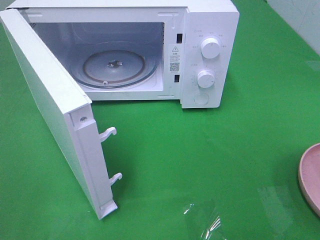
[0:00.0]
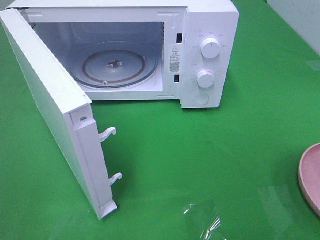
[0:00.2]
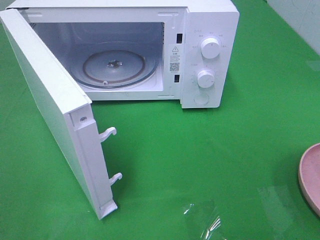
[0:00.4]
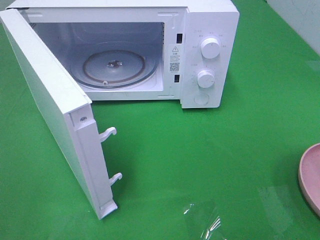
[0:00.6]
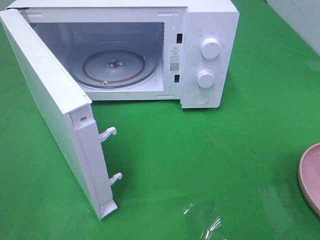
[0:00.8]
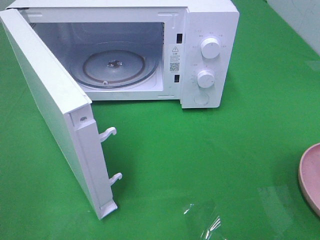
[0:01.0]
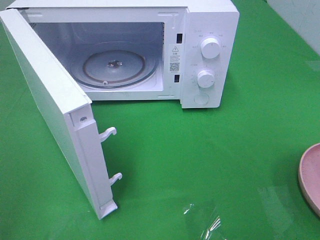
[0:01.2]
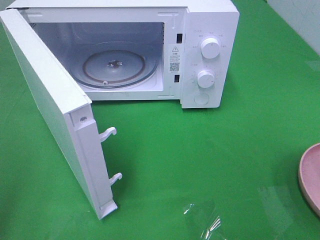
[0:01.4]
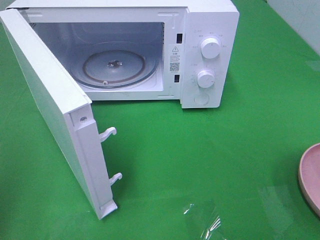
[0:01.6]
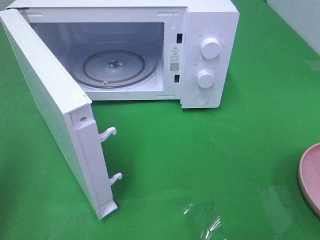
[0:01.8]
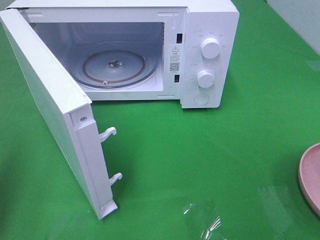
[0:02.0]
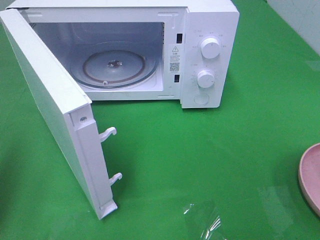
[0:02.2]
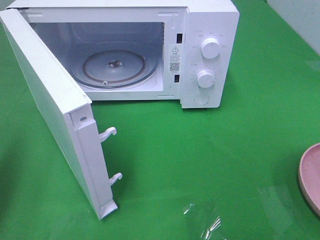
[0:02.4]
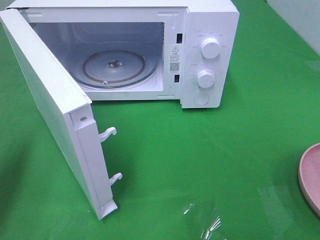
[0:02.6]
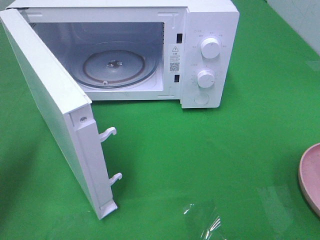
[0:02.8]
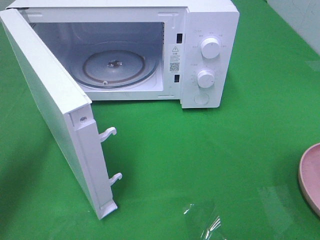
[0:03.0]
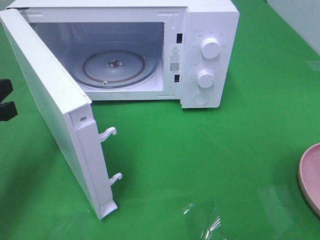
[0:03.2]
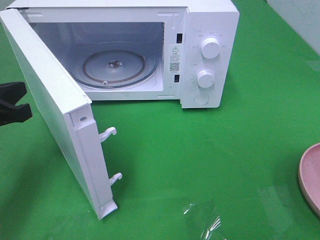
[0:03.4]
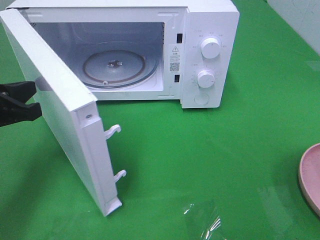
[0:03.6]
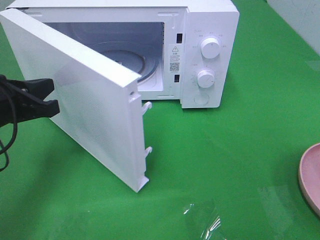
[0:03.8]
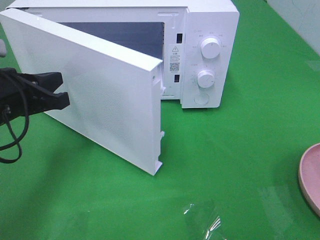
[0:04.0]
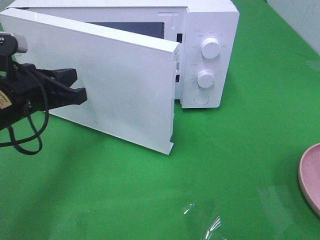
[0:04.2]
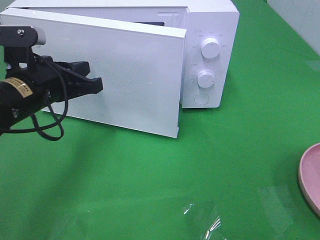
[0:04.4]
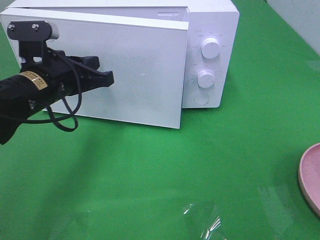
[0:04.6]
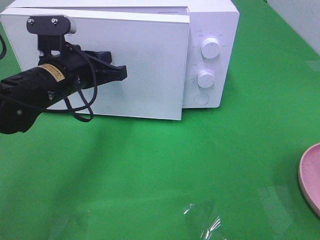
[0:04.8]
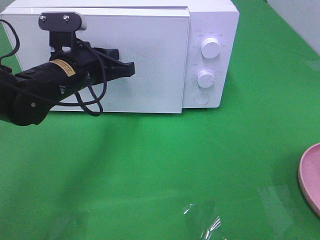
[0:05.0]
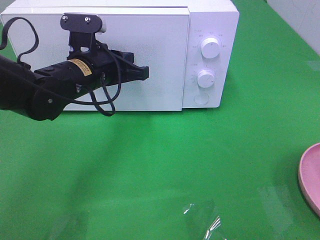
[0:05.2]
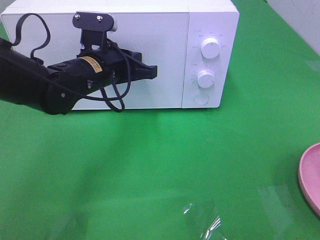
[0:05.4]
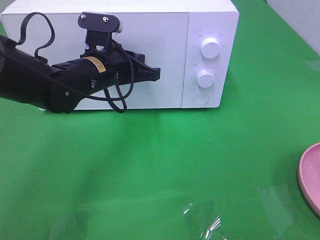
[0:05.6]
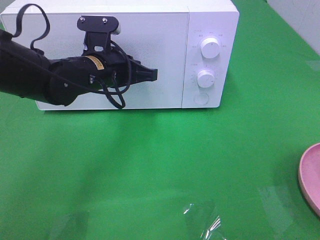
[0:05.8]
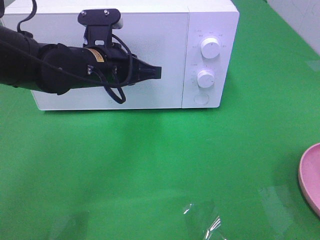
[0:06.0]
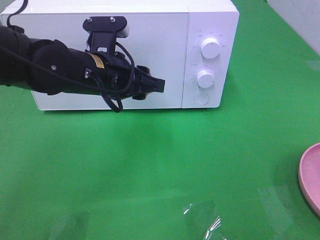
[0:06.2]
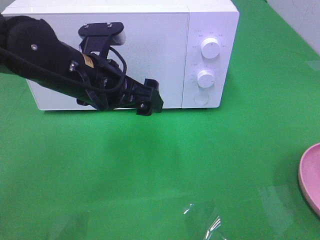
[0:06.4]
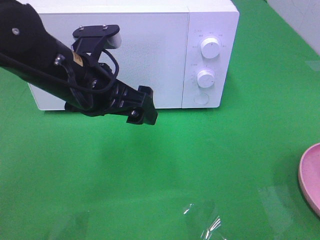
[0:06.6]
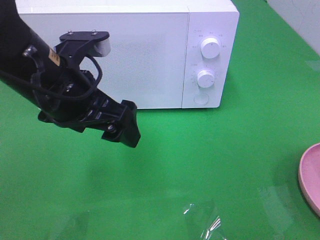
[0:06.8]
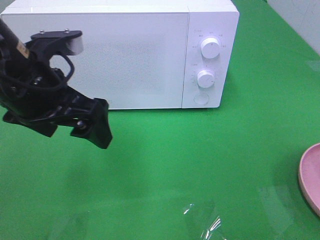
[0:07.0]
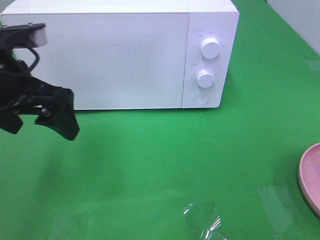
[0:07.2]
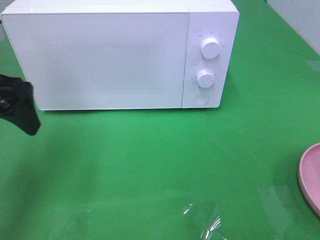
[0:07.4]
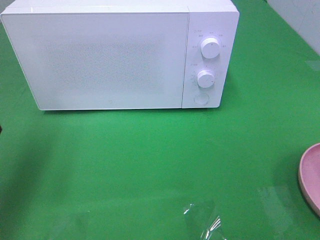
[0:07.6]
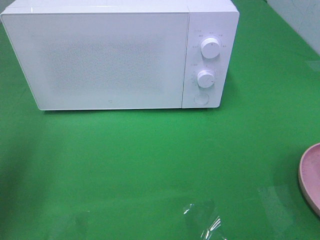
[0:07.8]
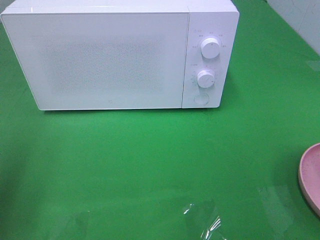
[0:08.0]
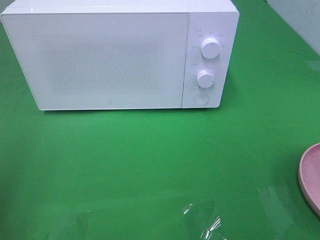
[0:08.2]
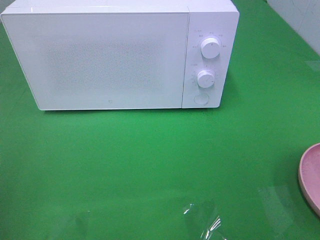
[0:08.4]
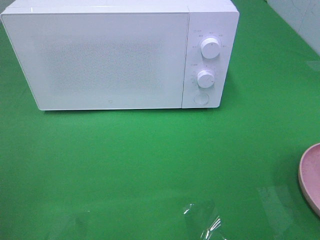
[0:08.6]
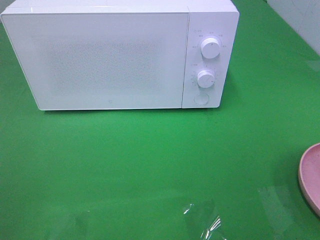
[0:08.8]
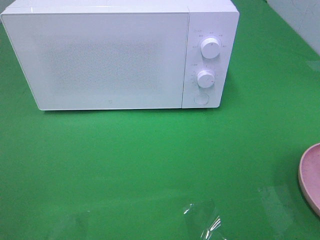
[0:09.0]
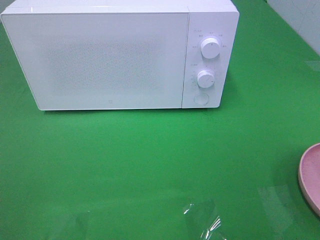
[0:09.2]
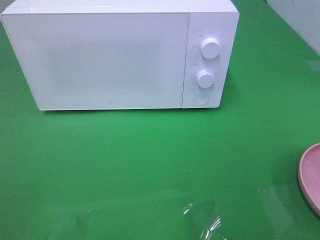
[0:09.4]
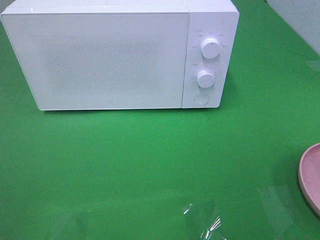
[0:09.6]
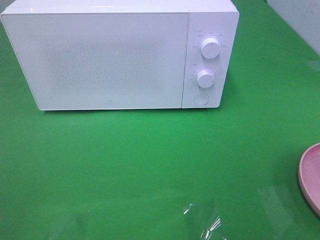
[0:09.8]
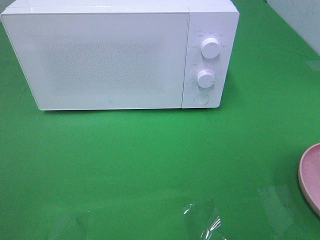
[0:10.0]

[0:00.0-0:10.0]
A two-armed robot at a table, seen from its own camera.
Task of the whole recording: Heat the burger.
Step, 0:00.0 to 0:06.2: Left hand: close the microwave door.
0:01.4 to 0:02.8: The left gripper shifts some 15 cm forward and downward, and closes its fingers.
0:02.8 to 0:04.2: The left gripper moves to the right and forward, approximately 10 cm.
0:04.2 to 0:05.8: The left gripper heads to the right and forward, covering roughly 15 cm.
0:05.8 to 0:07.2: The left gripper heads to the left, backward and upward, covering approximately 15 cm, and opens its fingers.
0:07.2 to 0:08.6: The left gripper is displaced backward and to the left by about 25 cm.
